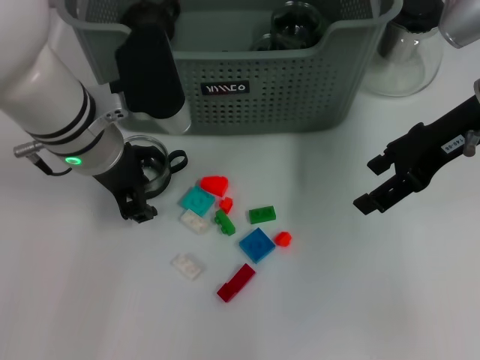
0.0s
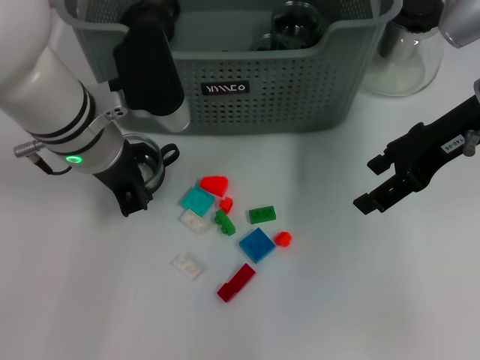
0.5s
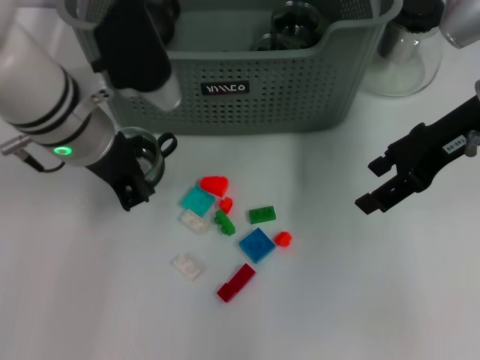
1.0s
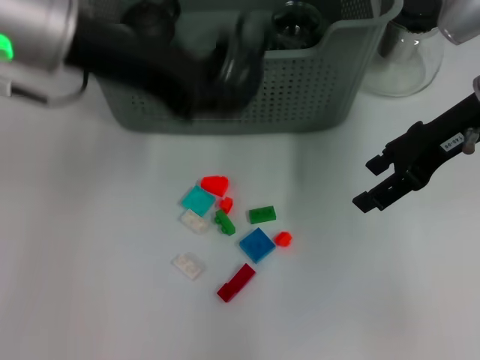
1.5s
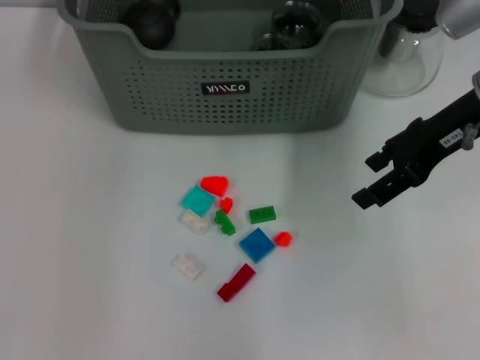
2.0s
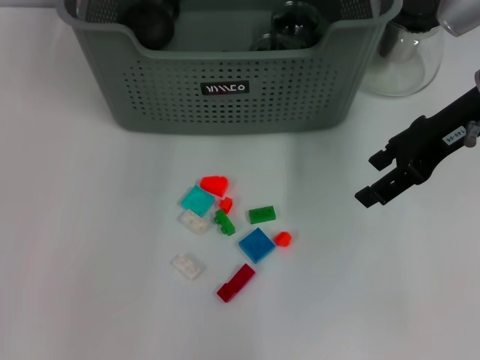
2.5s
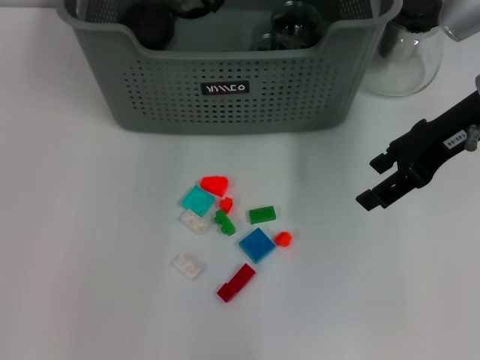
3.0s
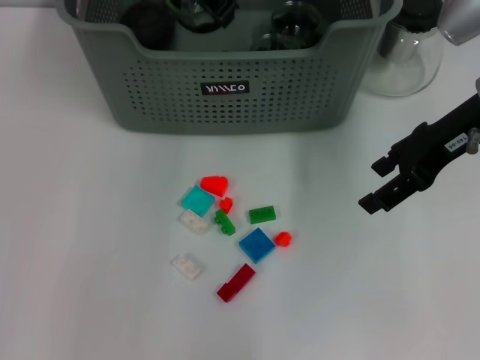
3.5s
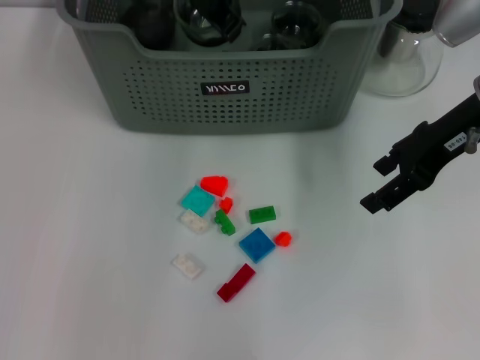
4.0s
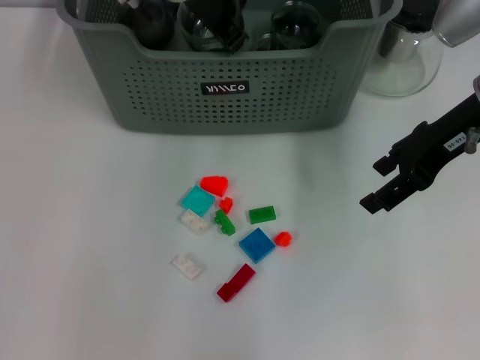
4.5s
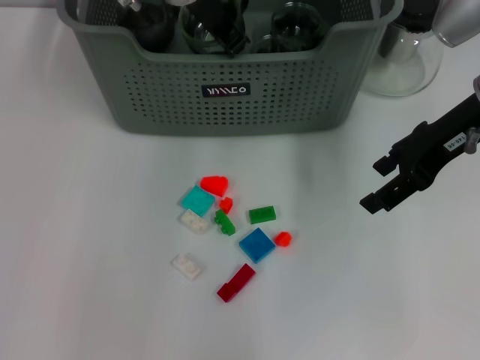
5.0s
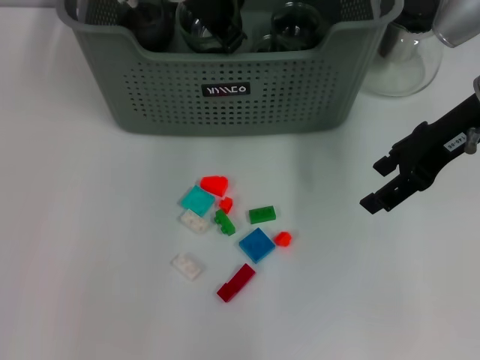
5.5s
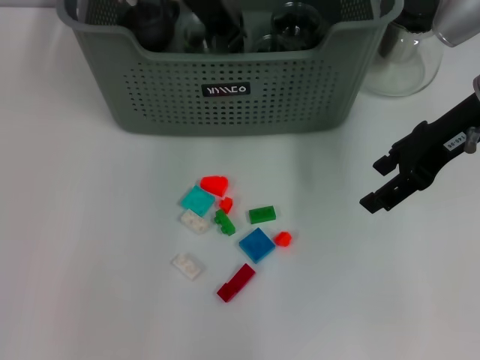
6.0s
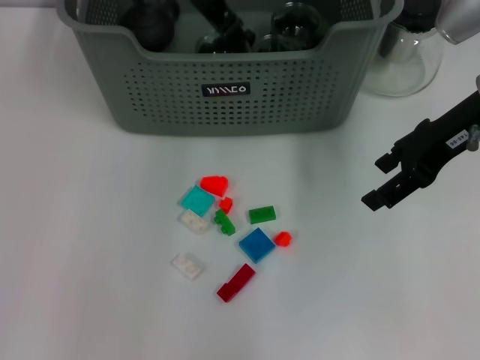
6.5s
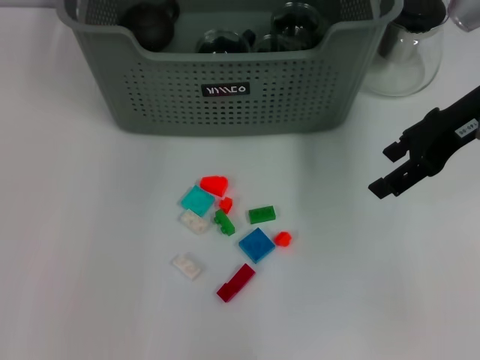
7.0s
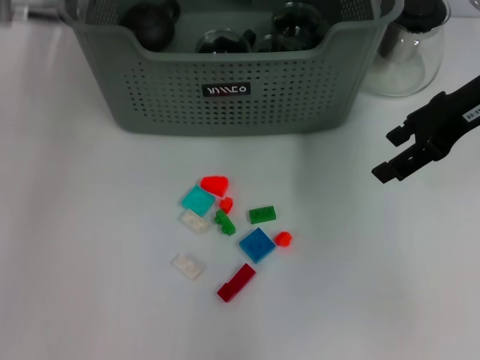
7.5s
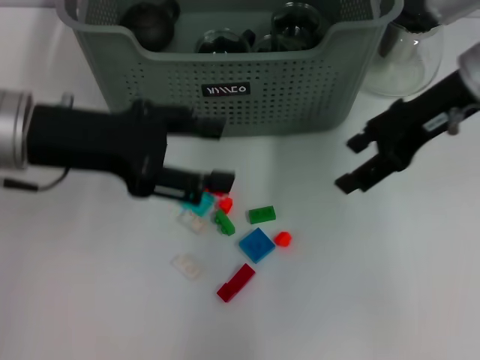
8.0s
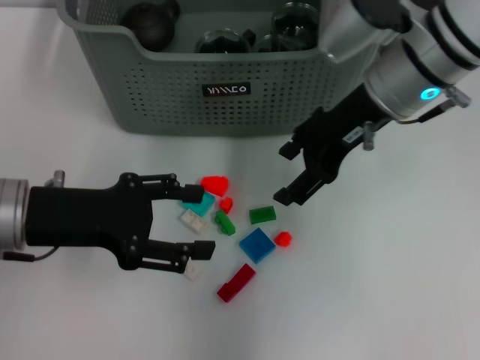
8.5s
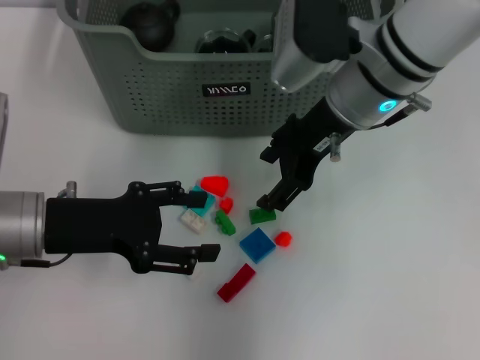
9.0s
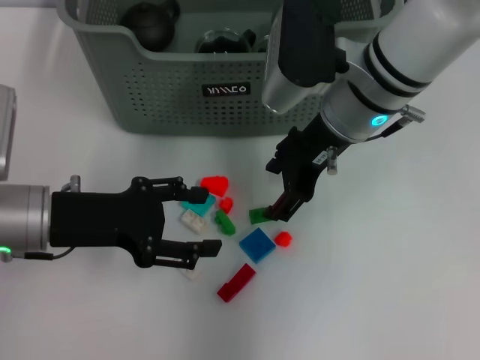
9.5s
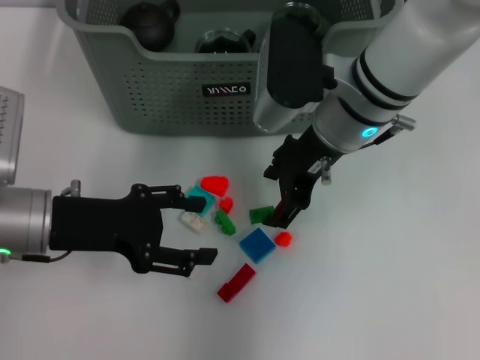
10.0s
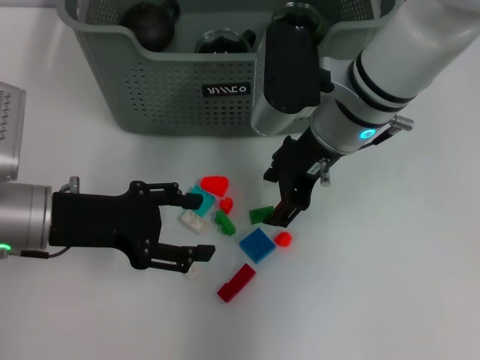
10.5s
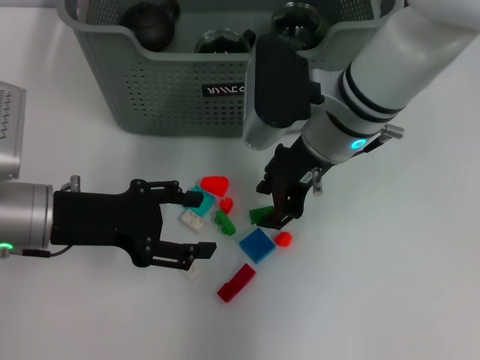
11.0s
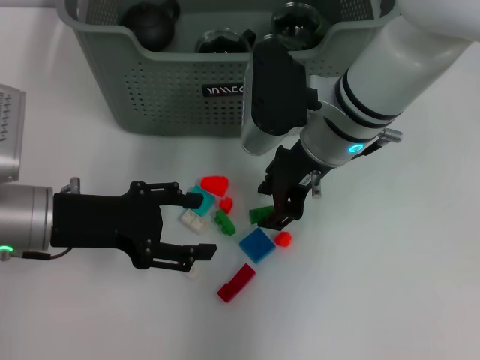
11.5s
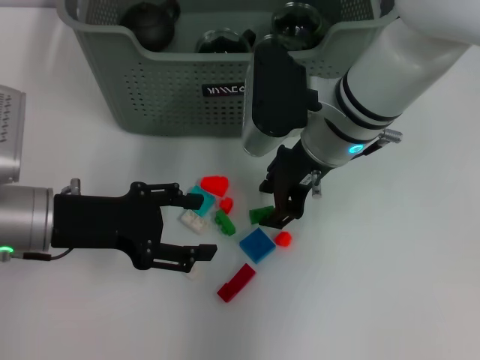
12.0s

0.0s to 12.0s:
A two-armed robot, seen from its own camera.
Task of the whole recording: pick up the teacup on the table and place it into the storage bin, pick up the block on the table and place it into the storage bin.
Step, 1.0s to 6.0s: Place the cup in the storage box with left gripper.
0.0s to 2.0s: The left gripper heads upward, covering roughly 20 cm, and closes.
2.0s to 4.0s: The left gripper travels downward and to the right by approximately 15 cm.
4.0s to 6.0s: Both grippers stay put.
6.0s to 8.0s: The left gripper travels backward and to the left by approximately 20 cm, and opens its fingers.
8.0s to 10.0s: The left gripper moves downward, approximately 10 cm; the right gripper heads to the left and downward, covering some 15 cm.
10.0s to 12.0s: There are only small adjustments of the grippers.

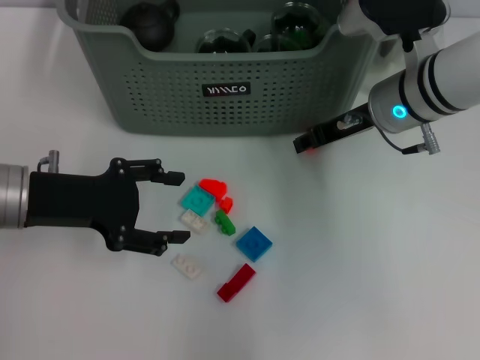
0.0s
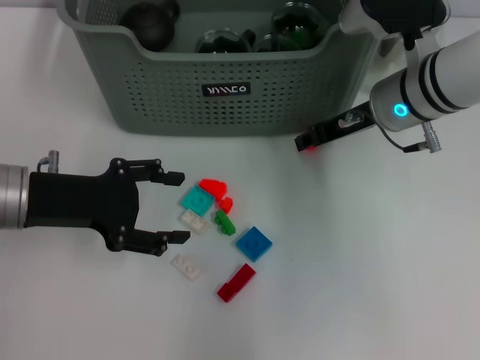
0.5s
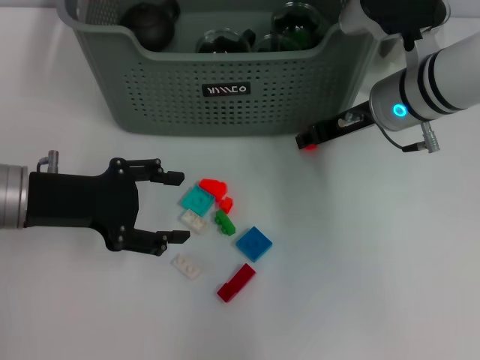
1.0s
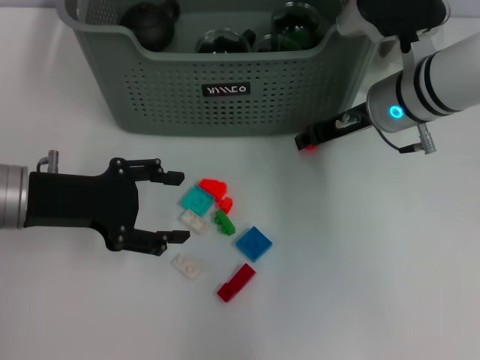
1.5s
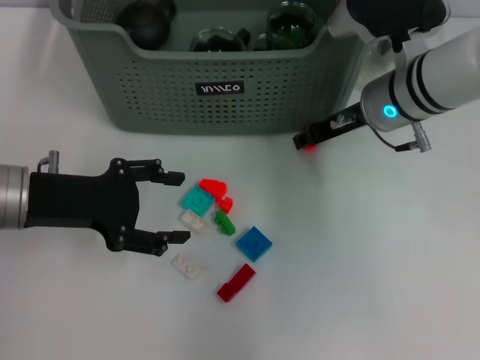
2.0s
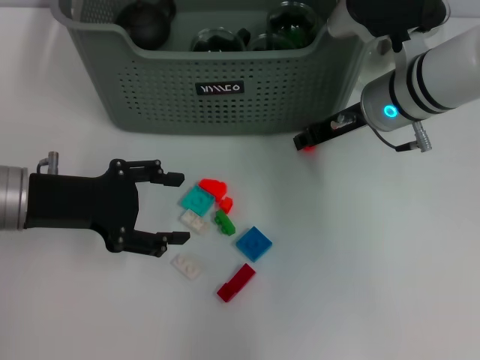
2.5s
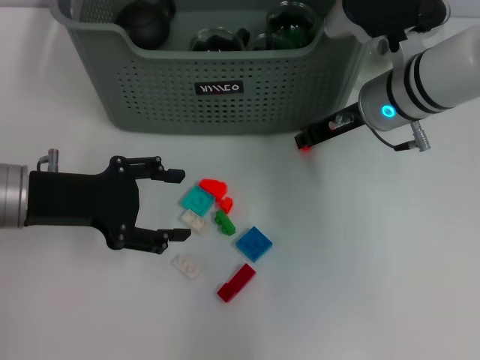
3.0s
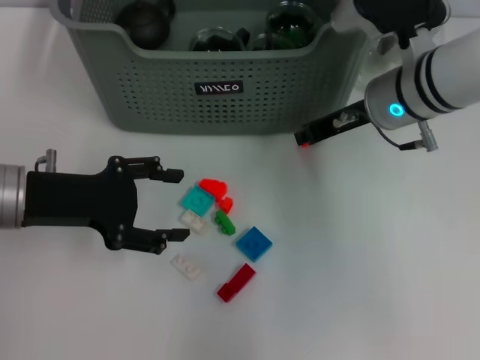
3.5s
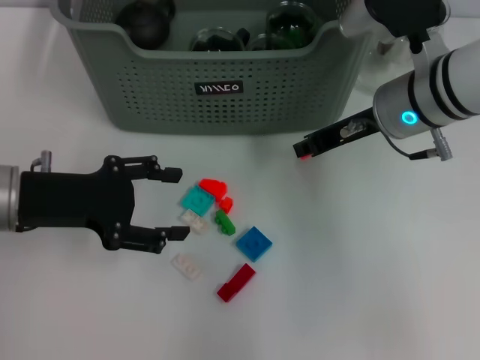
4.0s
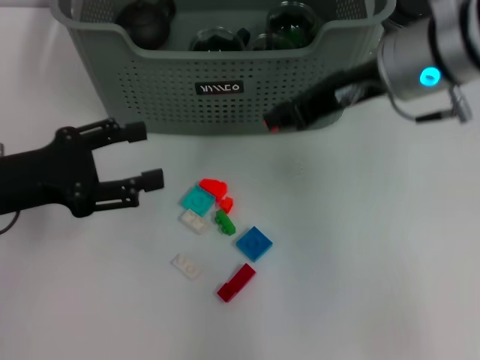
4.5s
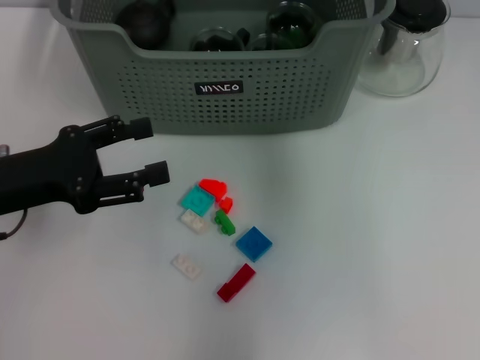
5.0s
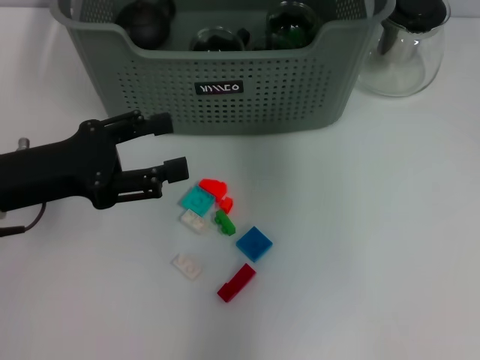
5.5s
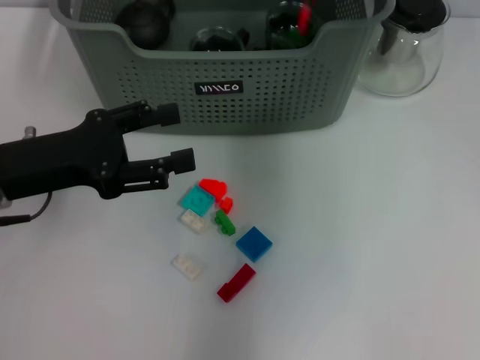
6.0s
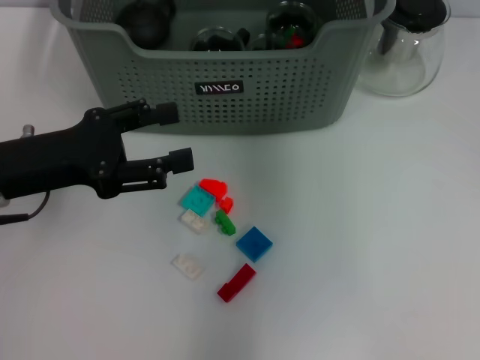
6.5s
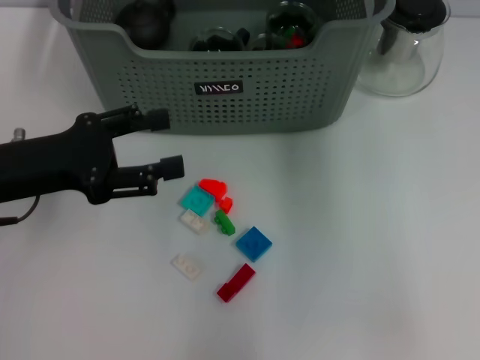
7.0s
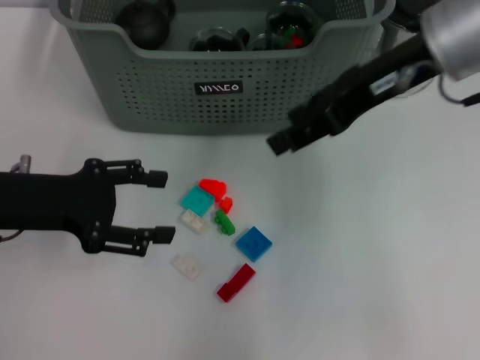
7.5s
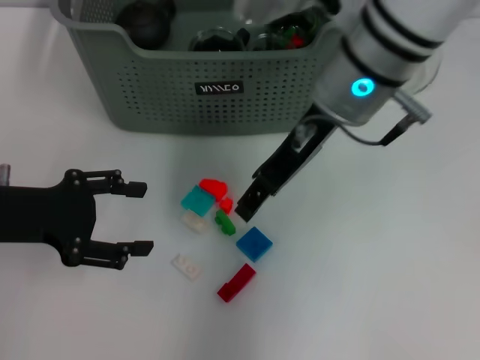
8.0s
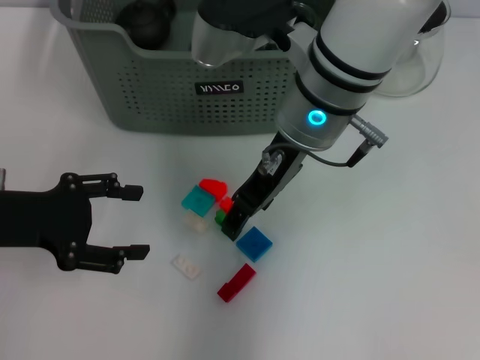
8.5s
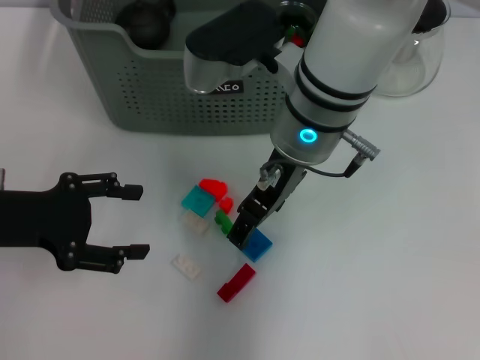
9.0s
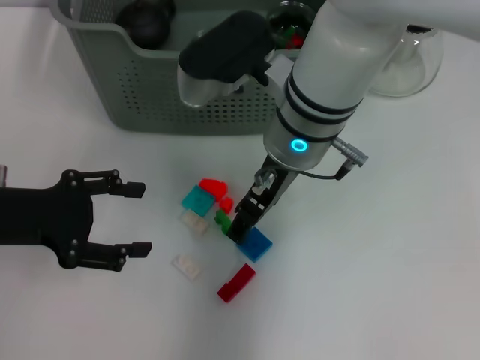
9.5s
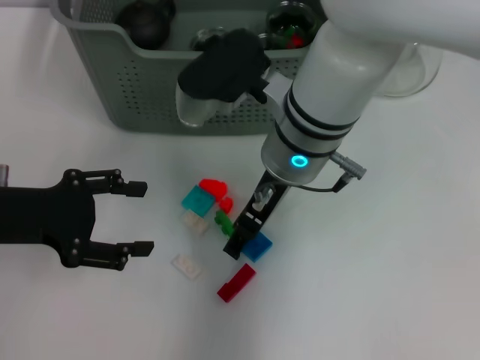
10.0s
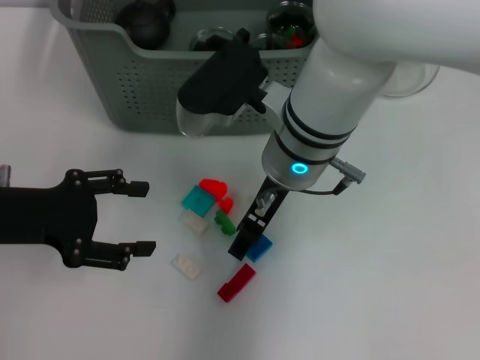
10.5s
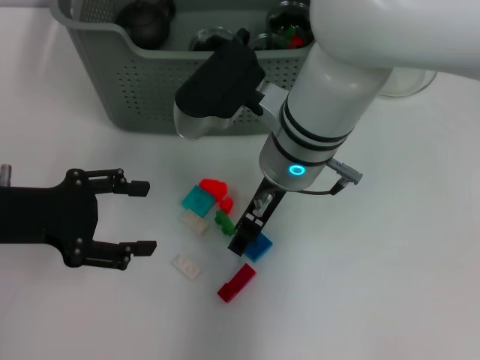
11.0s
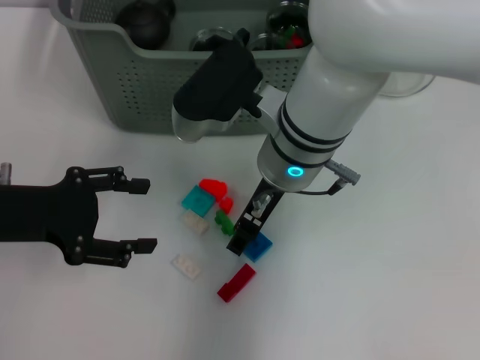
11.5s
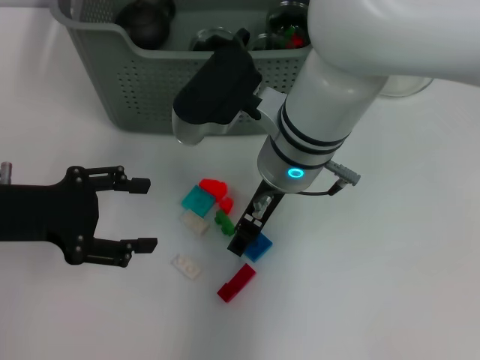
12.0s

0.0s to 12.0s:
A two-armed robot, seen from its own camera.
Task of the whole recording: pick up the teacup on the table and place it into the storage bin, pick up the block on the table and place it into the storage bin.
Step, 0.0s to 2.5s: Grasp the orange block with right gripper.
Step, 3.5s to 6.0s: Place the orange block in the storage box with right gripper.
0.0s to 2.0s: Both grippers stay about where they are.
2.0s to 4.0s: The grippers stay close to where they were, moving slightly.
4.0s to 6.0s: The right gripper moves forward and upward, approximately 15 cm.
6.0s to 8.0s: The right gripper shifts approximately 15 cm backward and to the left, and opens its fingers.
8.0s to 10.0s: The right gripper travels downward by approximately 5 cm.
10.0s to 12.0s: The grippers make only small movements.

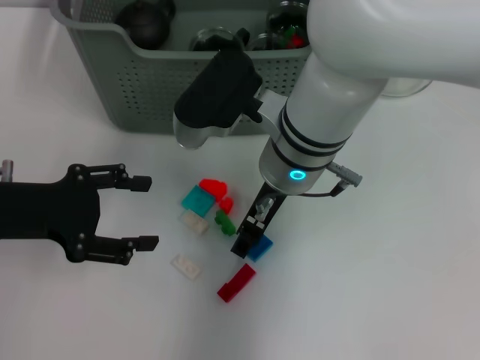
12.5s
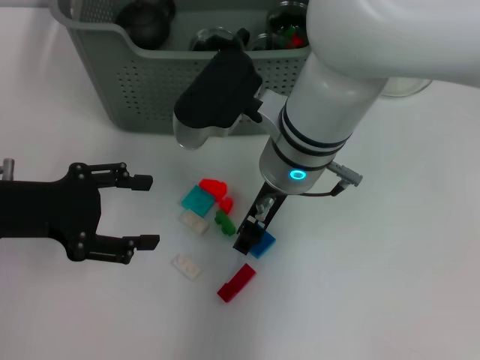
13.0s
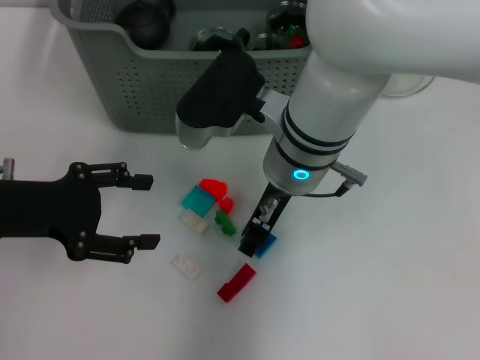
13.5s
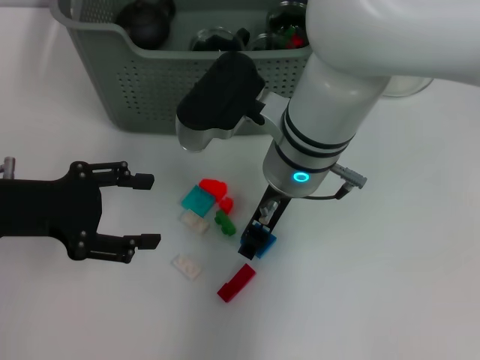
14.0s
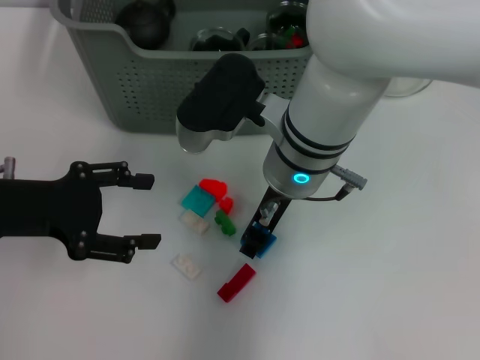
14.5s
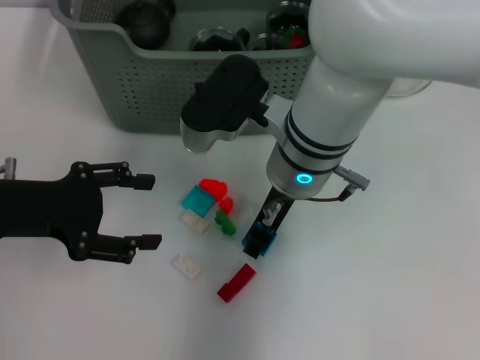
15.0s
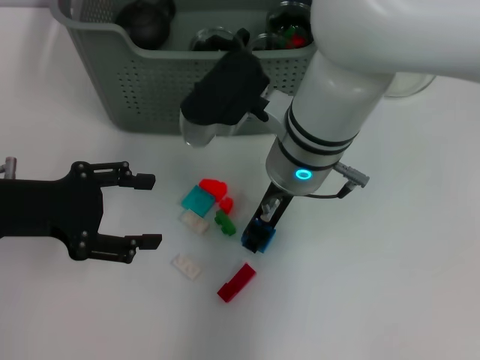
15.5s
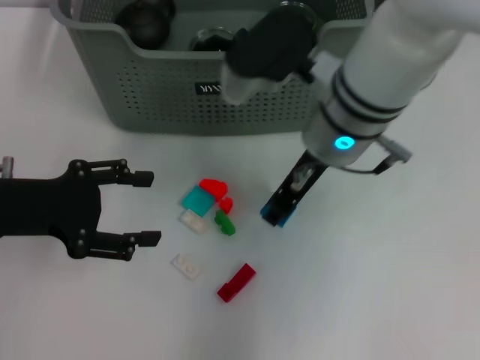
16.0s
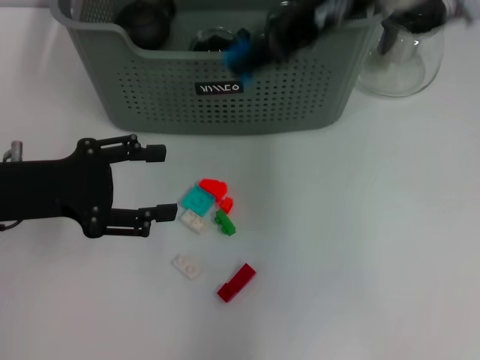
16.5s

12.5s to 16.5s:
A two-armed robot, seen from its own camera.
Task of the whole recording: pick up the teacup on the table and place it into the storage bin, pick up the block on the table and place it into the storage bin.
Step, 12.5s to 15.0s: Grasp the dark blue block with right gripper.
12.5s to 14.5s: Neither gripper changes place.
14.5s to 16.5s: The right gripper travels upward and to the right by approximately 15 cm.
